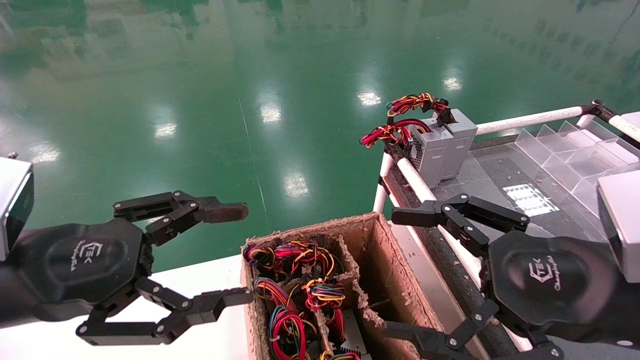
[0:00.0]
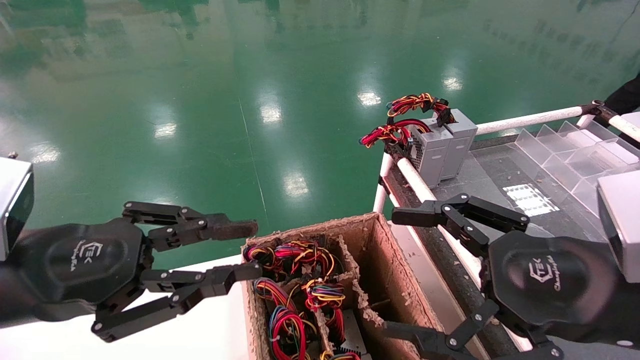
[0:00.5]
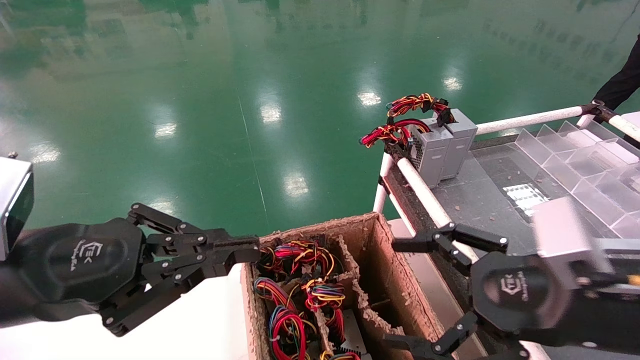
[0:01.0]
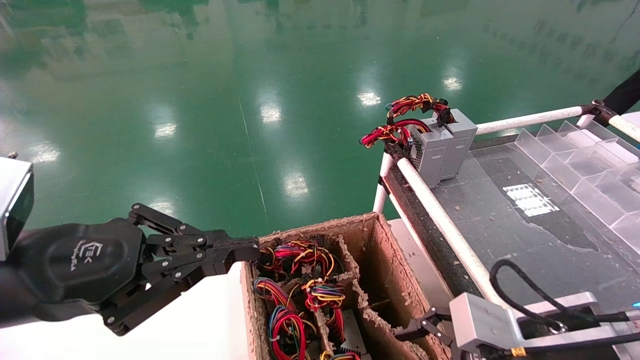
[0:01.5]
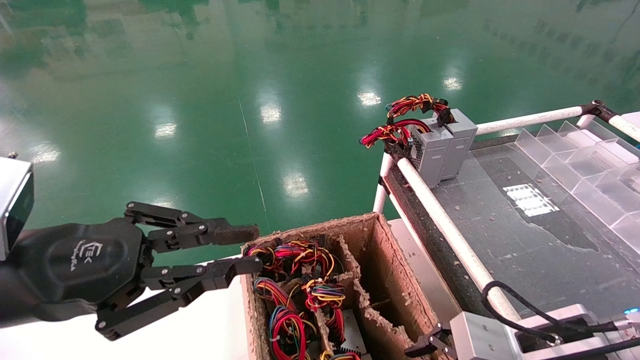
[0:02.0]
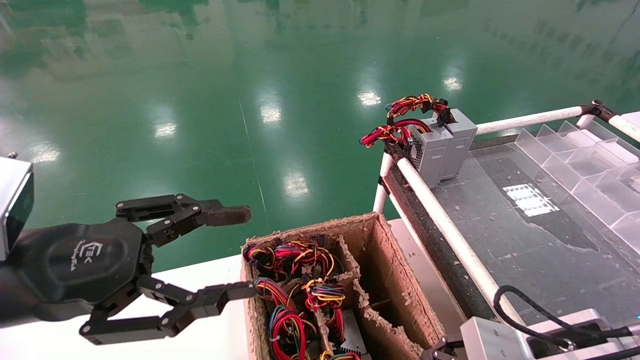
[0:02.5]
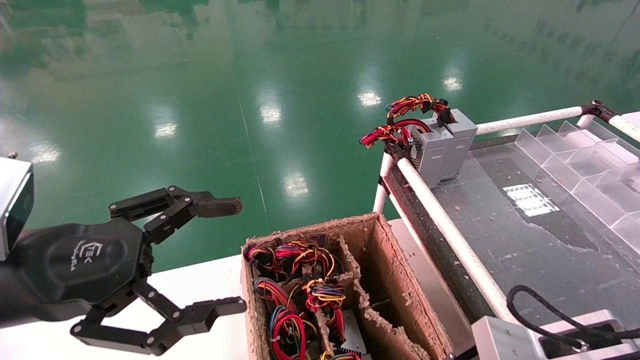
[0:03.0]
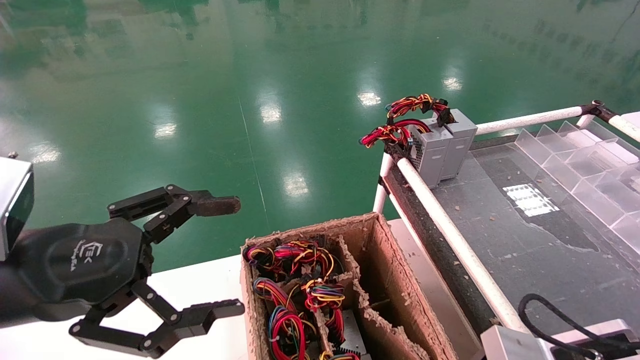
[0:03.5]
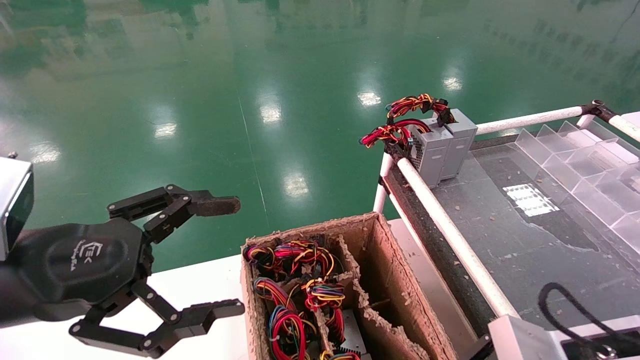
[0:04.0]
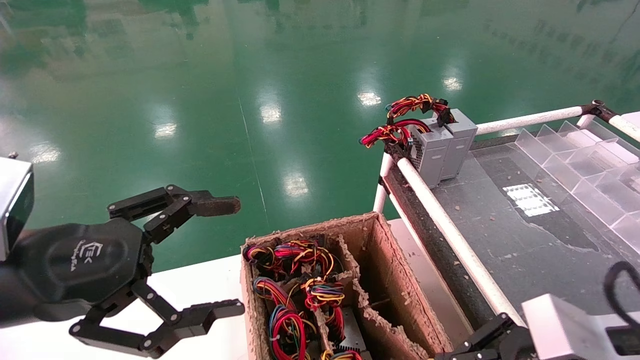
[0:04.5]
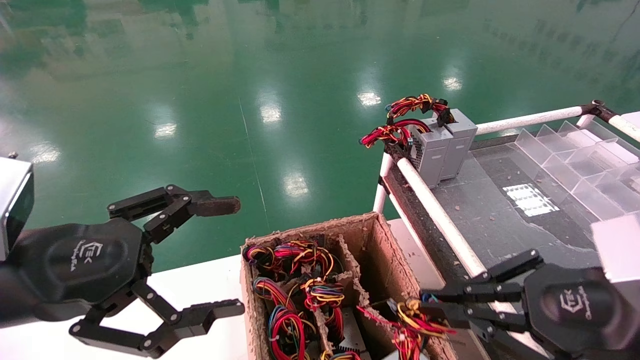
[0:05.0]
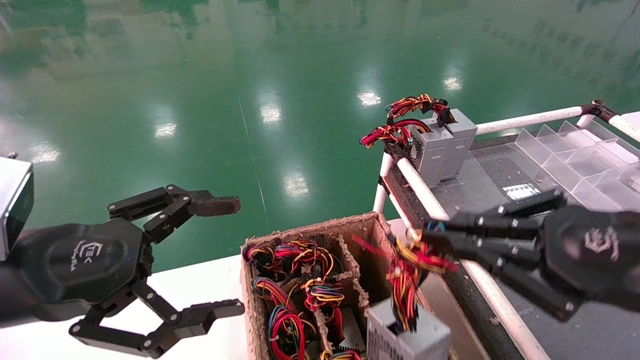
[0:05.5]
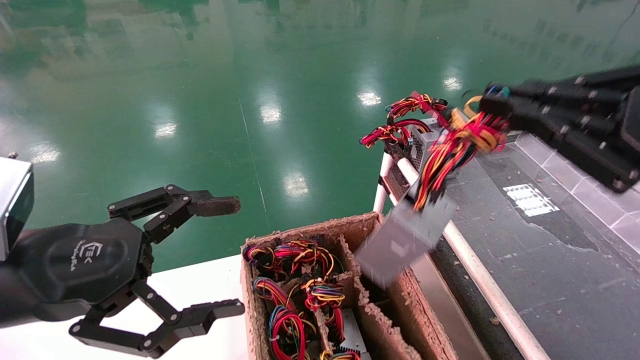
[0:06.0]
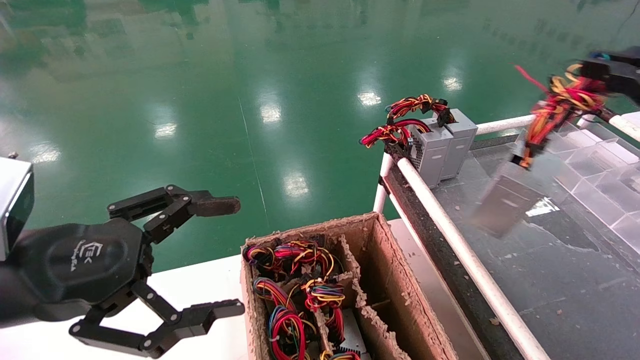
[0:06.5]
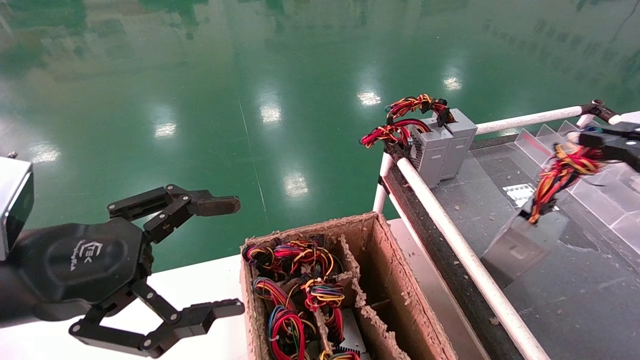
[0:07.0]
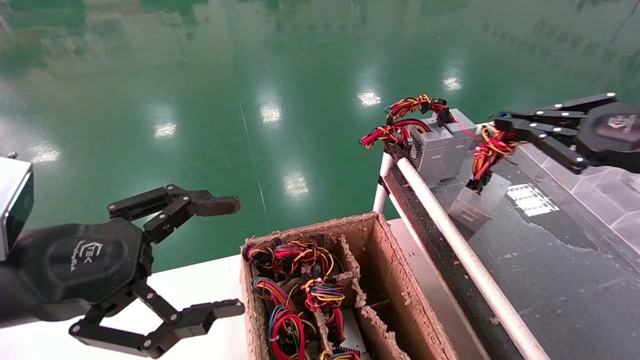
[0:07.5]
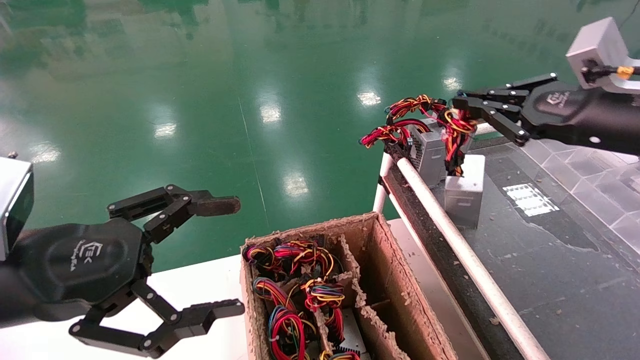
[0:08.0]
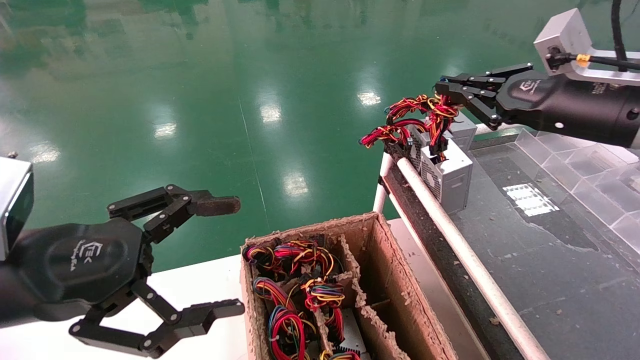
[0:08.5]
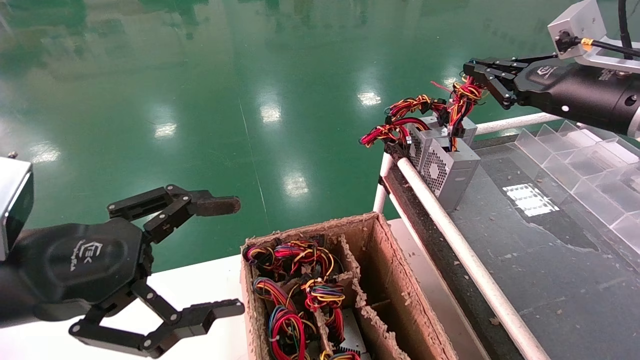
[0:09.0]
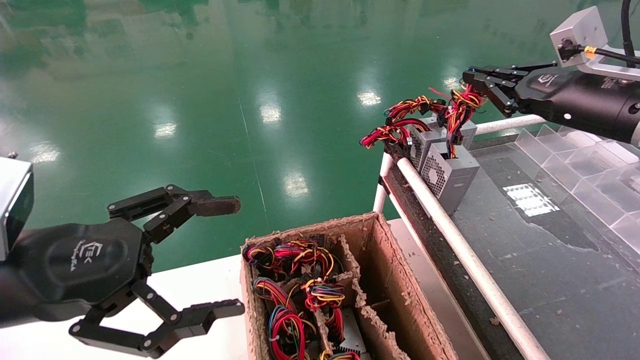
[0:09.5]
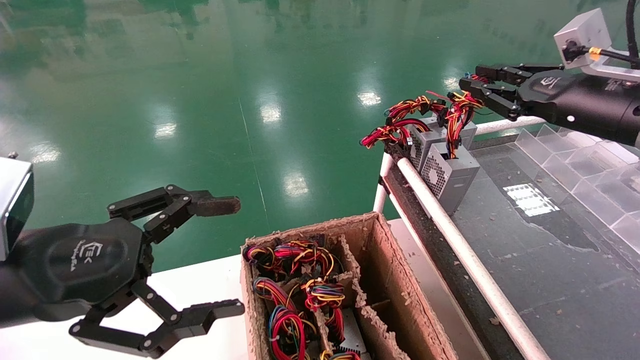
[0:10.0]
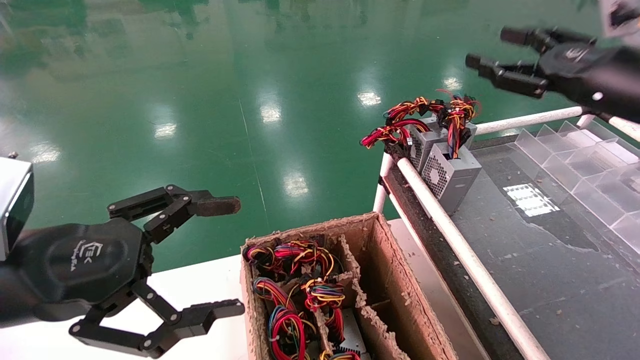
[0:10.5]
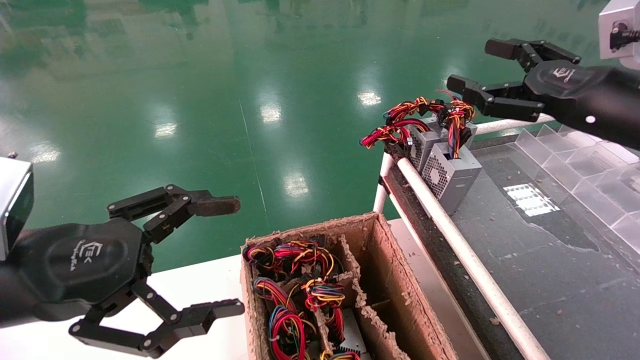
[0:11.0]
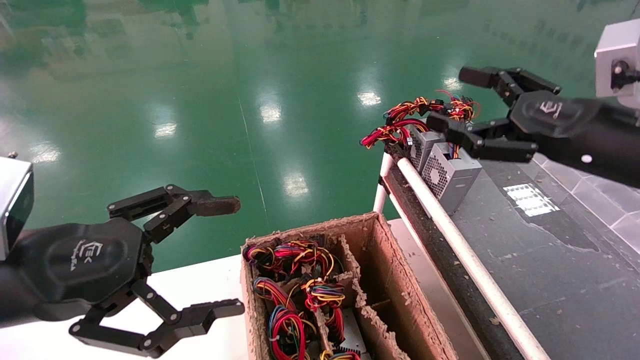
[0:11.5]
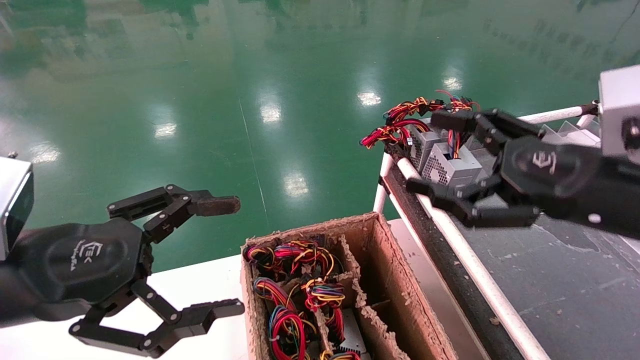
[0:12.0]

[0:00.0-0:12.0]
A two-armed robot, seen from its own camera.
Step, 0:01.0 to 0:03.0: Grab and lift the power supply from the large box.
Step, 0:03.5 to 0:09.5: Place the power supply on the operating table.
0:00.0 to 0:02.0: The right gripper moves downward and forward, some 10 cm; the left gripper closes up.
0:02.0 to 0:04.0: The right gripper closes up. Meanwhile the left gripper opens its fingers.
0:04.0 to 0:06.0: The right gripper is displaced upward by approximately 20 cm.
0:06.0 to 0:08.0: The right gripper is displaced forward by approximately 15 cm.
0:08.0 to 0:10.0: The grippers move only a little.
0:10.0 to 0:12.0: The right gripper goes some 15 cm backward, to the left and downward, and opens its fingers.
